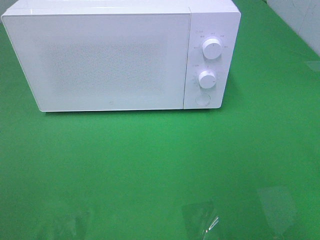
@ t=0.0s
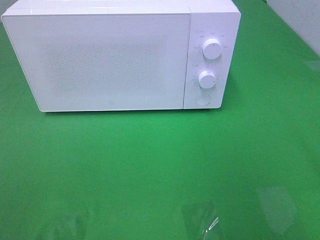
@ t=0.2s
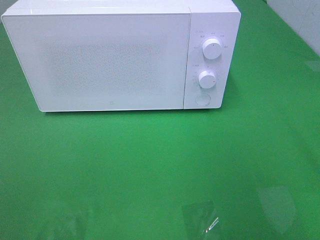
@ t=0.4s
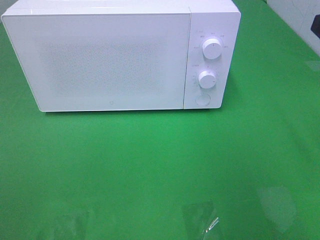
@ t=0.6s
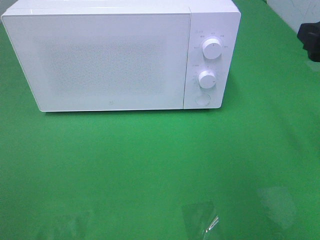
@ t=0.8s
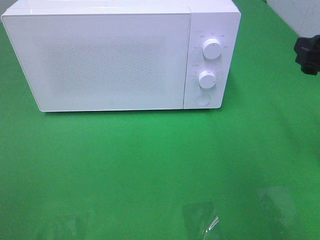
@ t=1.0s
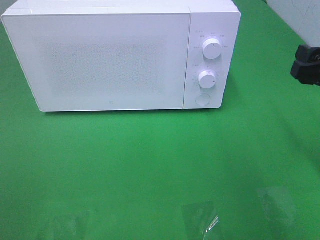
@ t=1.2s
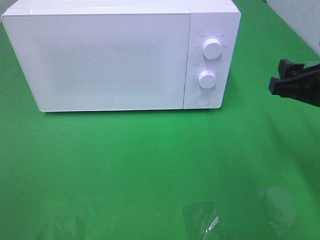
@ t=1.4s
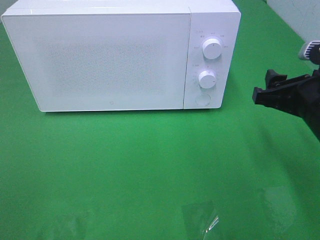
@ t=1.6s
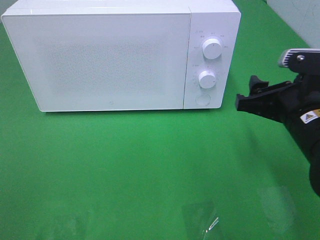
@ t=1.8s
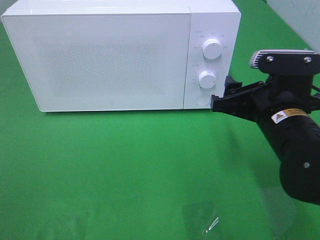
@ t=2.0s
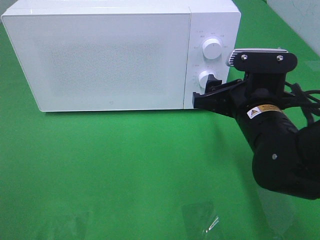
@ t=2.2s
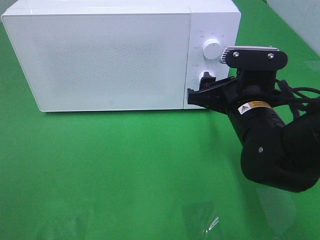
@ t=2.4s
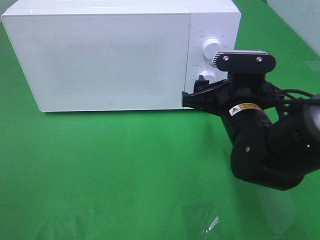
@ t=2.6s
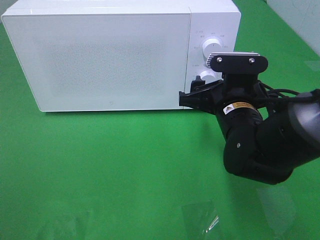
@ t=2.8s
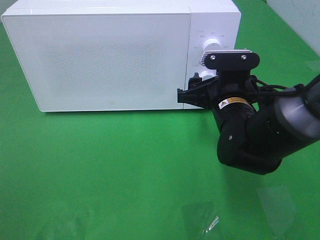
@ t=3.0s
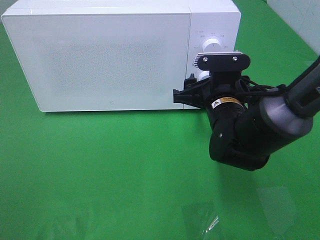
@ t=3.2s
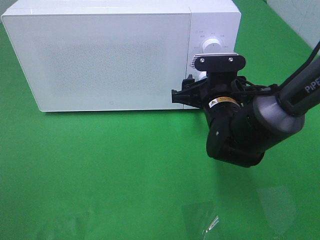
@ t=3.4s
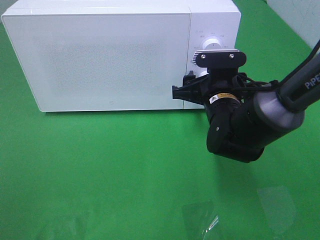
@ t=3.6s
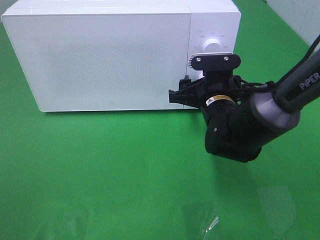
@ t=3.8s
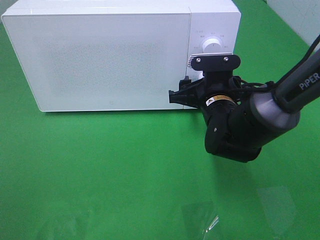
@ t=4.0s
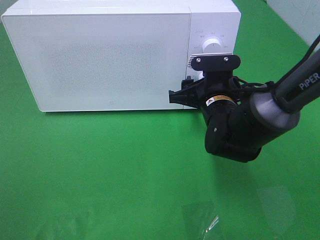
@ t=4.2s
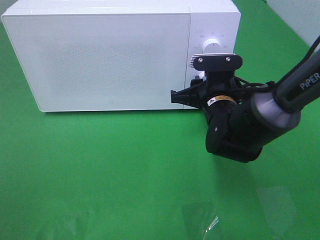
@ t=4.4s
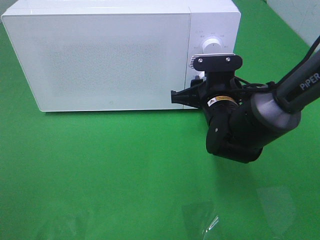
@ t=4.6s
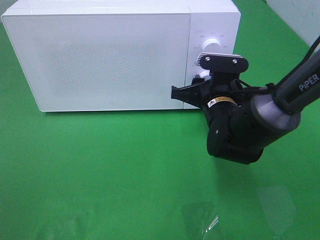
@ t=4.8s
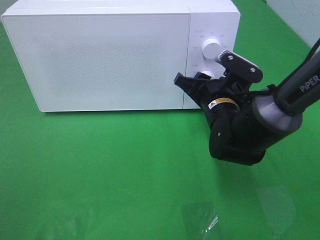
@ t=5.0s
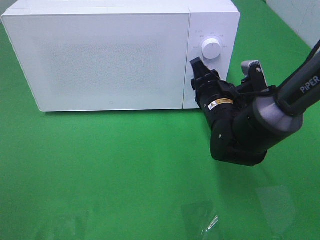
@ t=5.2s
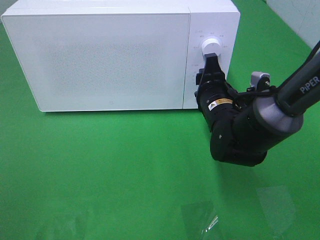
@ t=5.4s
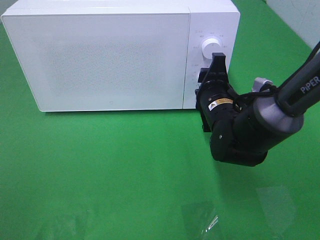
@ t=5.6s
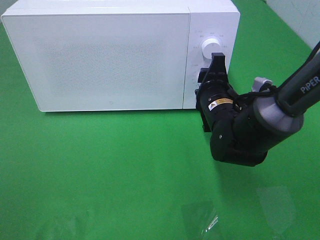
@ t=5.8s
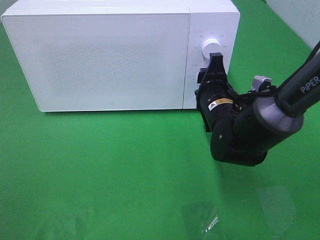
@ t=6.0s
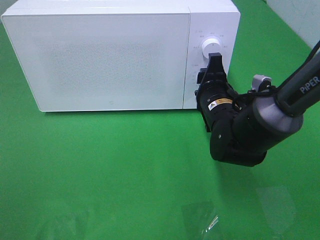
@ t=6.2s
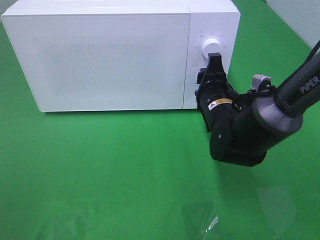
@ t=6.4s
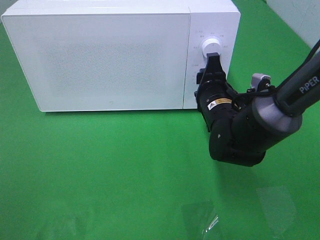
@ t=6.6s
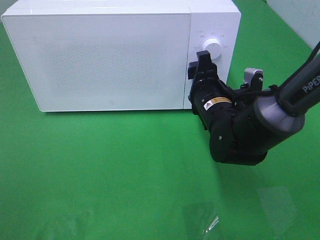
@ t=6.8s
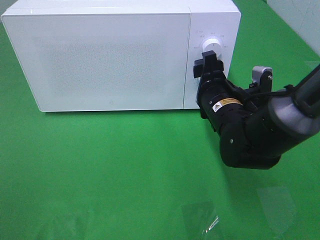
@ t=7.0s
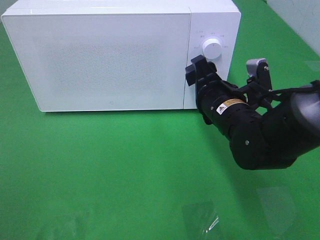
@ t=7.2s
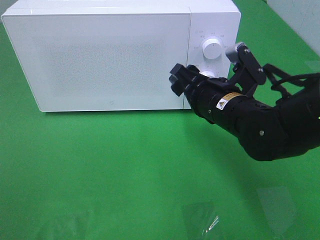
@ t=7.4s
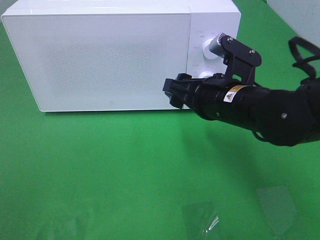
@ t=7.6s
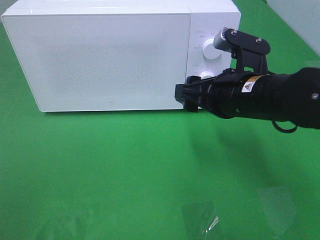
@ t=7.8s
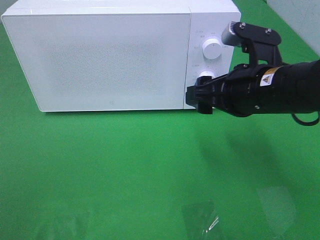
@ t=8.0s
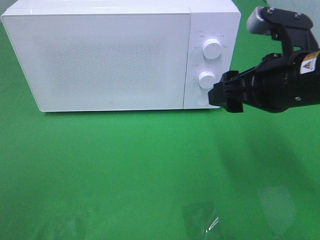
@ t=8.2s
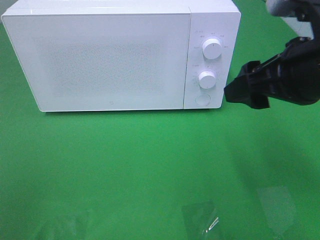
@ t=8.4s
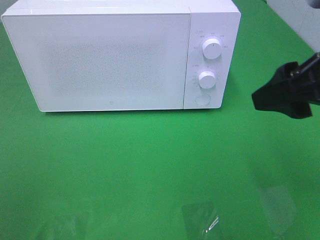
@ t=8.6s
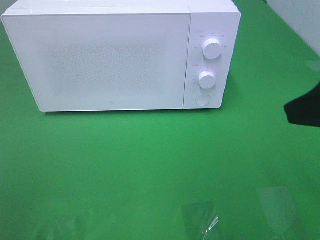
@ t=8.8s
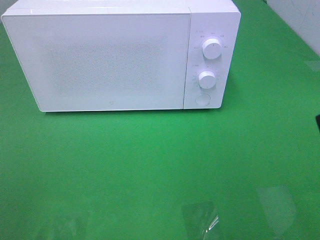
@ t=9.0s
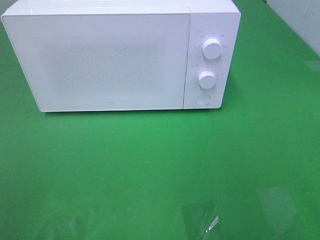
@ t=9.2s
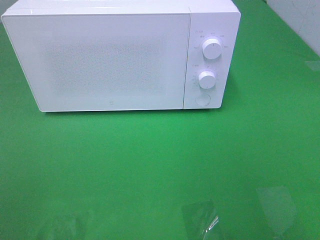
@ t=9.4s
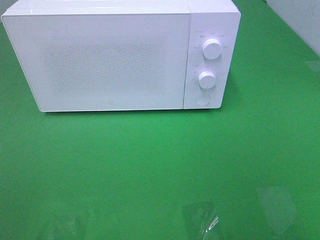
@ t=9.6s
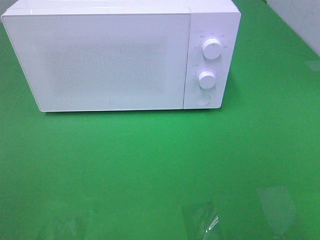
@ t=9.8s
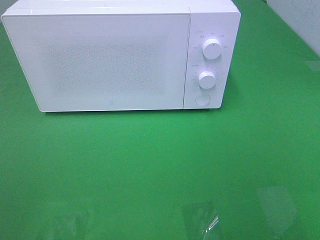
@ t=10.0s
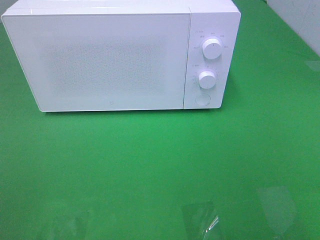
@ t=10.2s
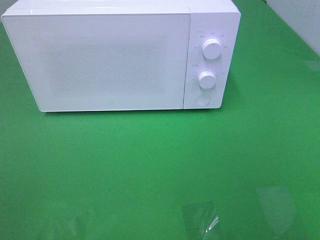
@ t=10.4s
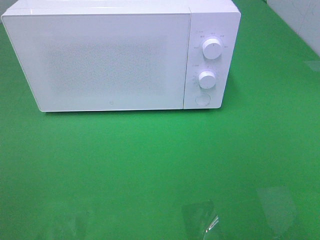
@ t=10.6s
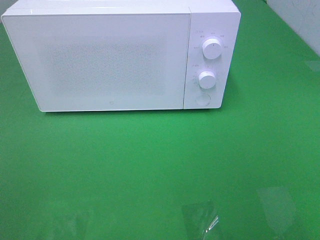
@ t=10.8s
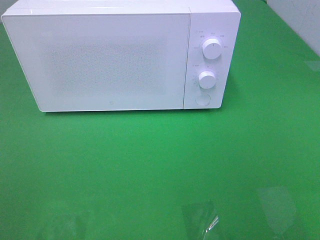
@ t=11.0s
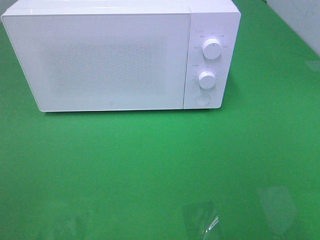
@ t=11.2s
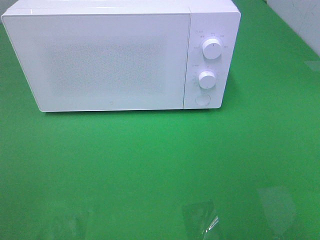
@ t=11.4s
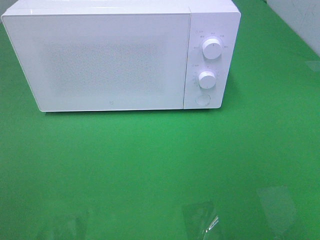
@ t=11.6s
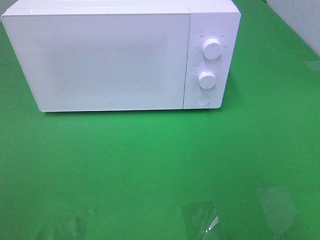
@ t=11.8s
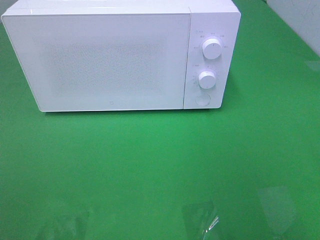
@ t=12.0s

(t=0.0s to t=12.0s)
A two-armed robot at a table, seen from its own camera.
Task of the whole recording: Heat the burger.
Step, t=0.0s - t=6.6s: Right hand: twist timer button.
t=0.0s - t=1.6s: The right gripper moves downward, forward and to the left, roughly 20 cm.
t=1.6s - t=3.0s: The right gripper heads to the left and forward, covering some 10 cm.
t=3.0s - t=4.4s: The right gripper closes up.
t=6.0s - t=7.6s: The right gripper shifts roughly 10 cm upward and backward, and opens up.
t=7.6s - t=9.0s: The right gripper heads backward, upward and to the right, covering approximately 25 cm.

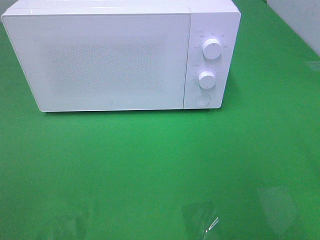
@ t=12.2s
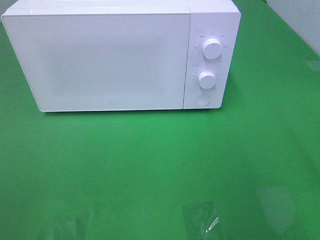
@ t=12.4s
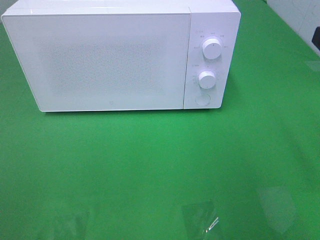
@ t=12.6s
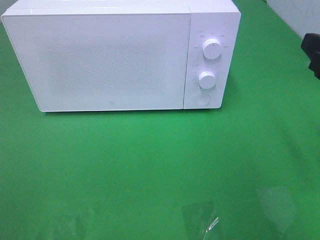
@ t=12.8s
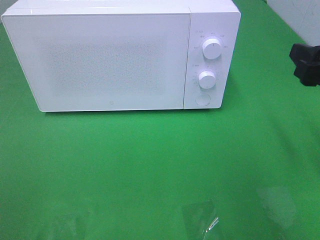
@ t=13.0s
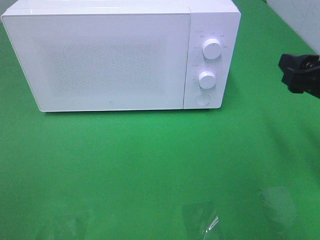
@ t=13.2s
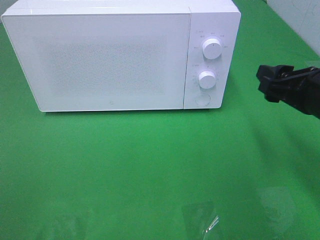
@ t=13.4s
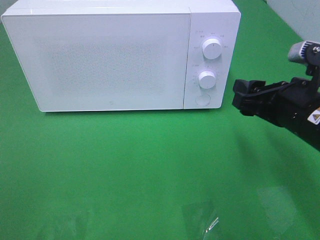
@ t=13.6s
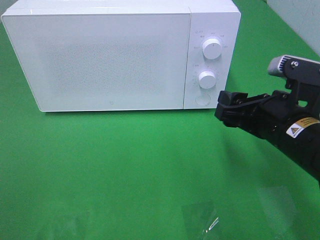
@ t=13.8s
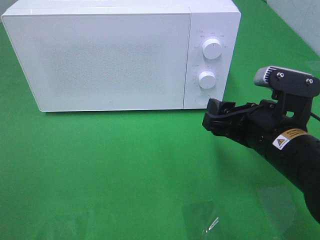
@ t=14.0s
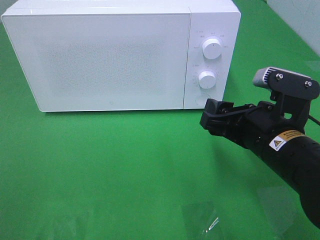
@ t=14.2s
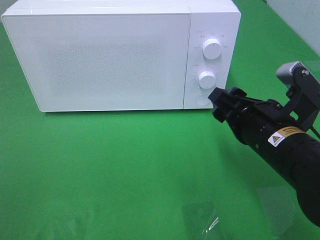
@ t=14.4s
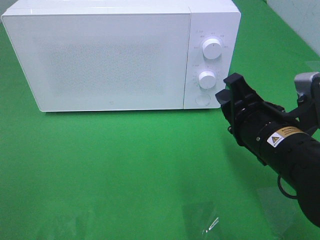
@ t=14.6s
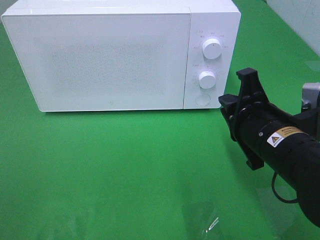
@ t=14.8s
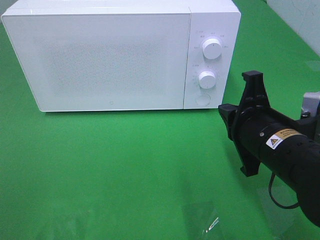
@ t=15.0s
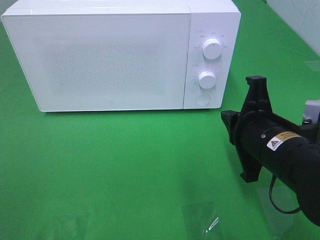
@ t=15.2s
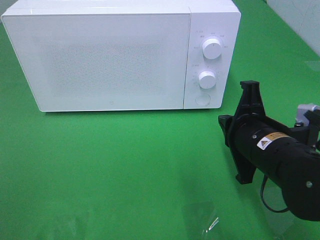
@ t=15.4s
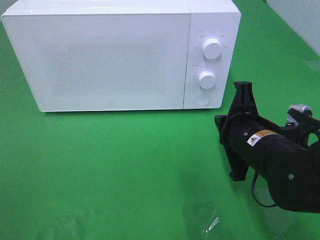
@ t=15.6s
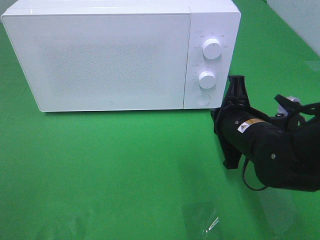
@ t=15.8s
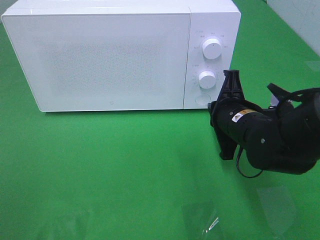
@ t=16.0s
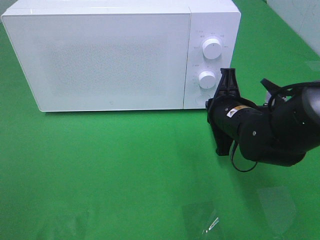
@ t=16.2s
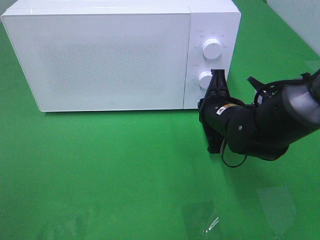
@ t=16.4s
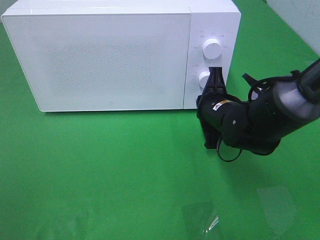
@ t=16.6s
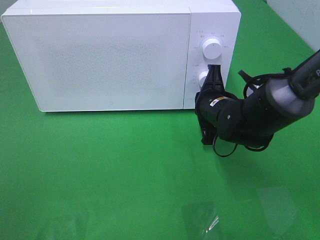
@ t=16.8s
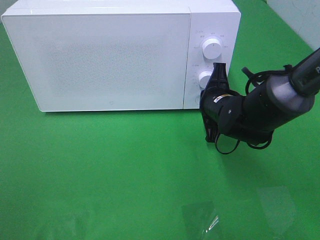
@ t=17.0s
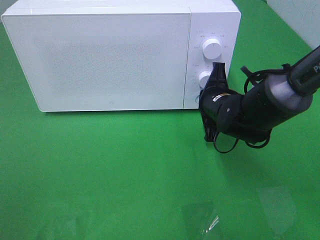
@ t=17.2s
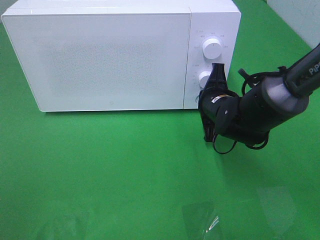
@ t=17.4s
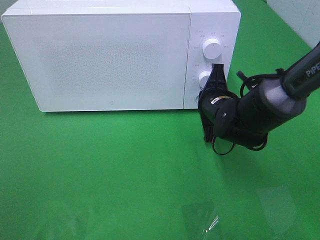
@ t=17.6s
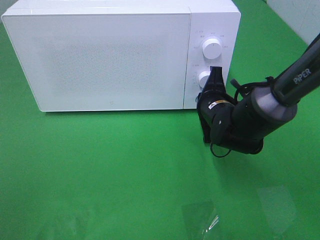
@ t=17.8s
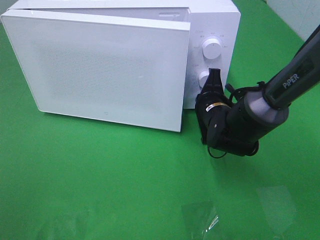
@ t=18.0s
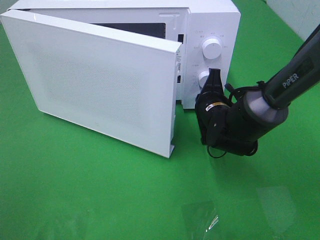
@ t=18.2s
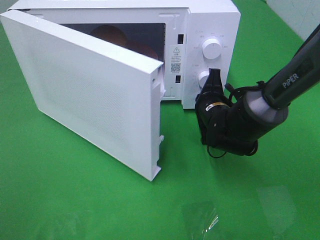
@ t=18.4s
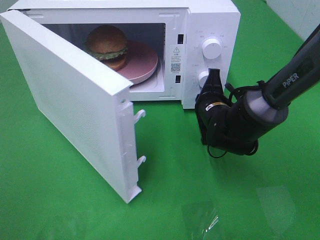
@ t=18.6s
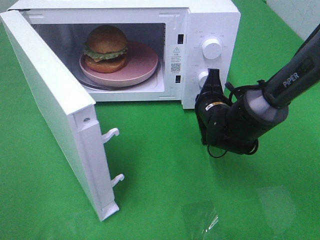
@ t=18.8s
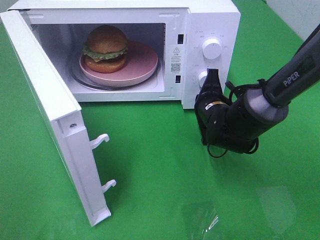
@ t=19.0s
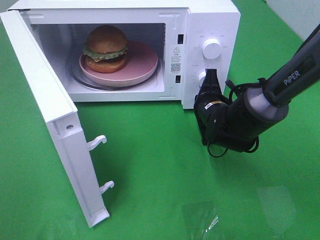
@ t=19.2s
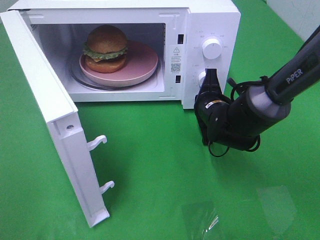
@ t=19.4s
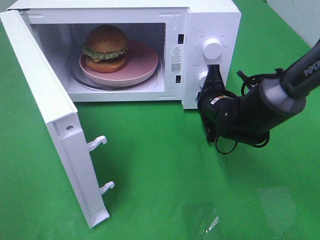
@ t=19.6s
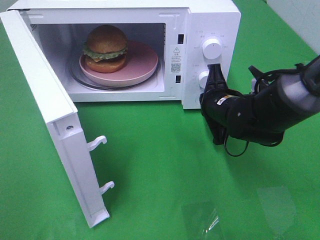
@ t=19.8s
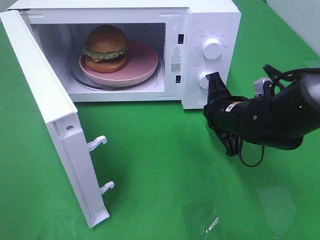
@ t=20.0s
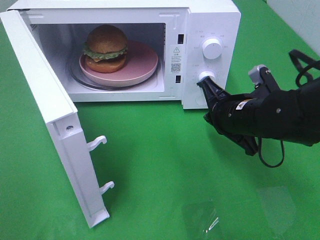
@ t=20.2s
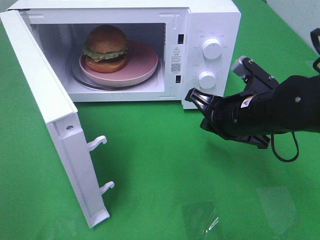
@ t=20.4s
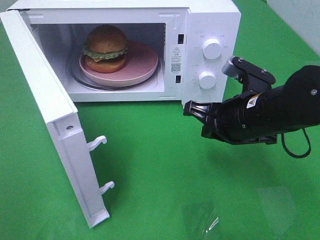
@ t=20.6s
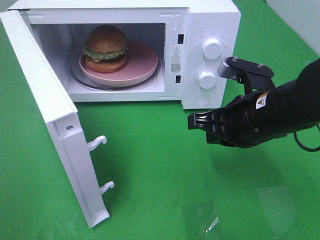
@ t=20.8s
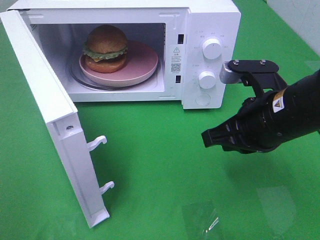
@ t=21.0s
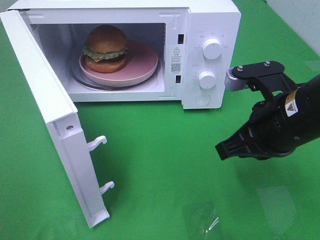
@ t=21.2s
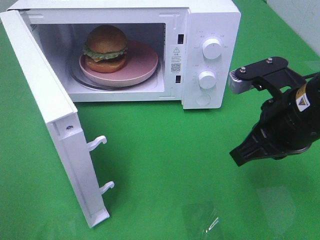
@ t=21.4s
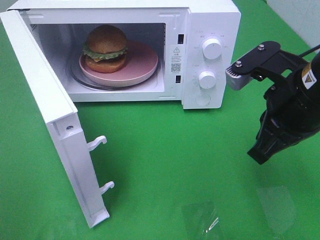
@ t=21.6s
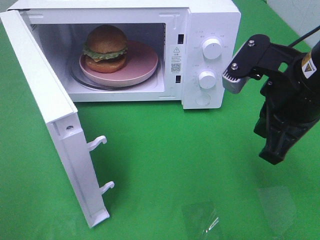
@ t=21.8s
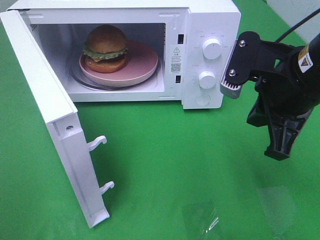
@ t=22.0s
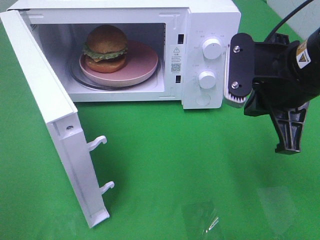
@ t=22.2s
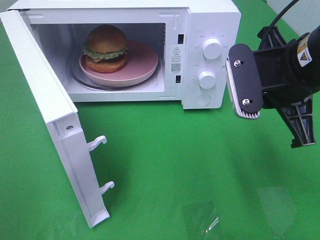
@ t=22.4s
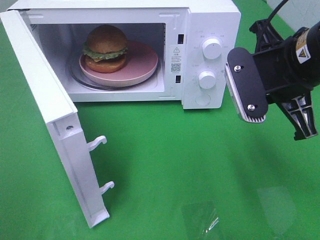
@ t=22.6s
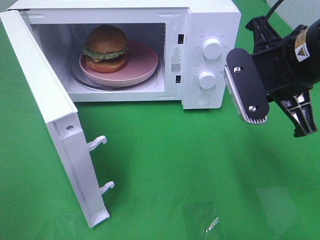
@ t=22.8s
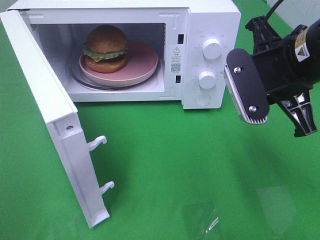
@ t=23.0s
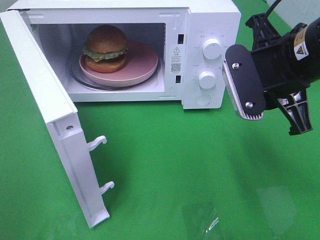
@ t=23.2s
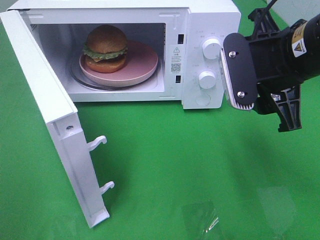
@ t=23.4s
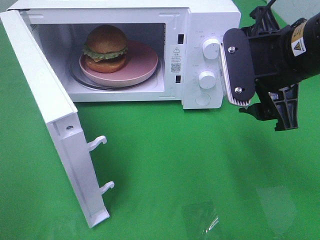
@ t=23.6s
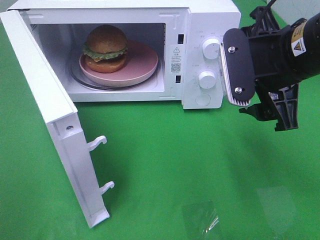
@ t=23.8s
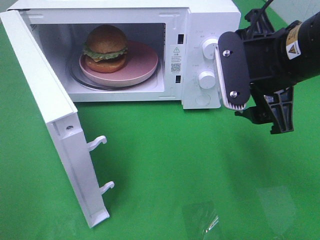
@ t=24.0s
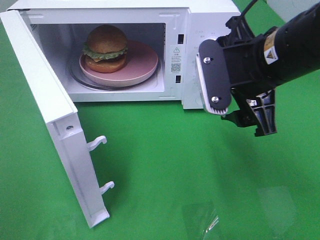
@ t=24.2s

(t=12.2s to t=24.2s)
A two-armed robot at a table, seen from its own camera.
Task of the whole recording: Heat the burger.
Step, t=12.2s - t=19.6s: Right hand: press the switch.
t=12.2s - t=13.8s: The right gripper heads downward, to the left and forward, covering roughly 20 cm.
t=13.8s - t=15.2s: The right gripper closes.
t=15.2s - t=16.6s: The right gripper travels forward and downward by approximately 15 cm.
t=16.6s - t=18.2s: There are only small adjustments of the grippers.
t=19.8s - t=21.2s: The right gripper travels backward and upward by some 15 cm.
t=21.2s - t=22.6s: The right gripper goes some 5 cm upward.
t=22.6s - t=24.2s: The right gripper opens up.
